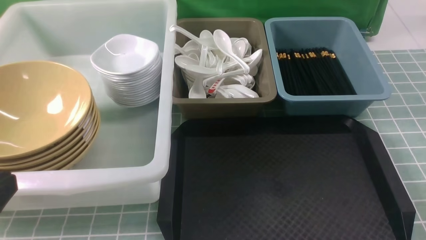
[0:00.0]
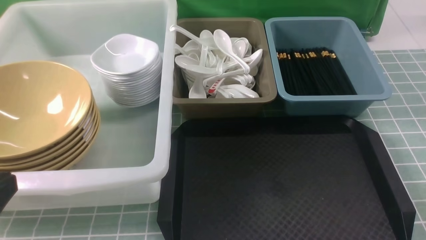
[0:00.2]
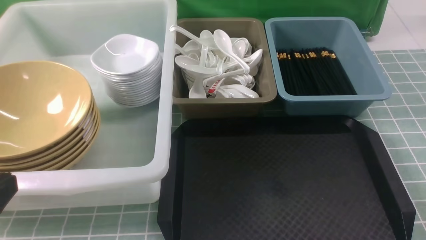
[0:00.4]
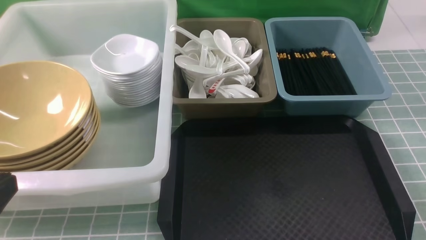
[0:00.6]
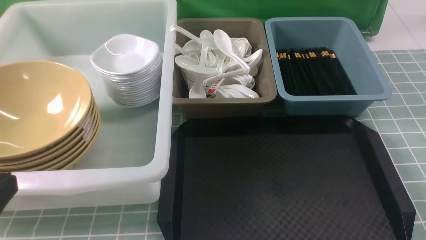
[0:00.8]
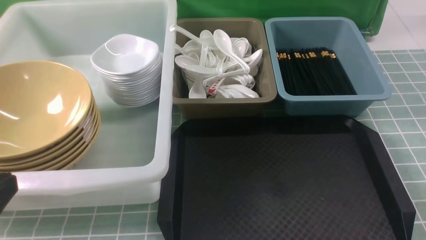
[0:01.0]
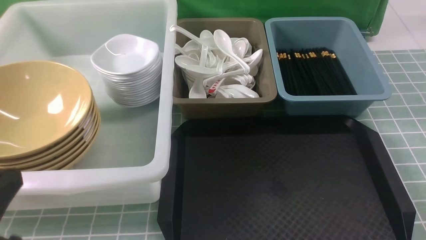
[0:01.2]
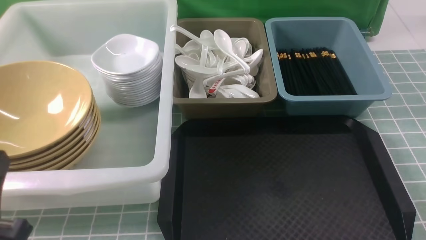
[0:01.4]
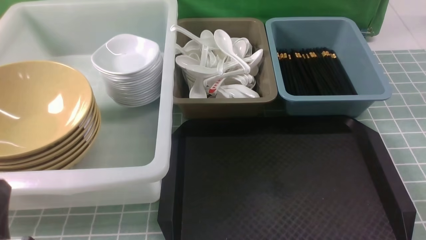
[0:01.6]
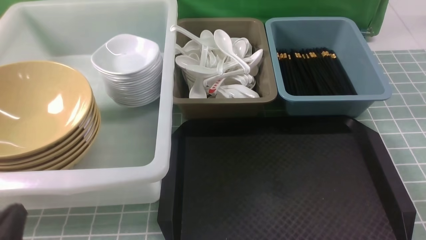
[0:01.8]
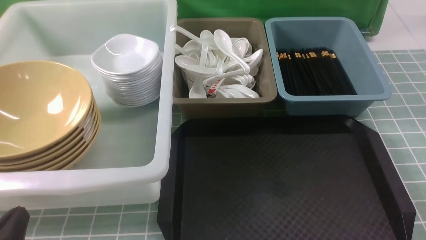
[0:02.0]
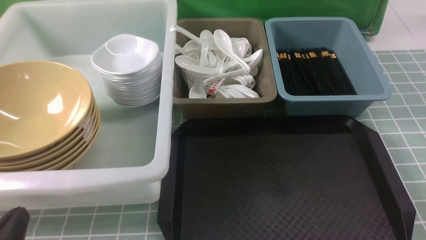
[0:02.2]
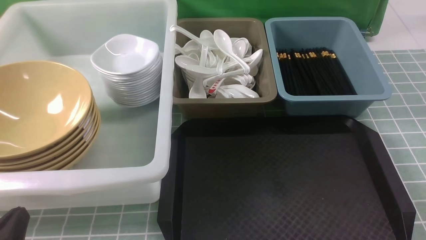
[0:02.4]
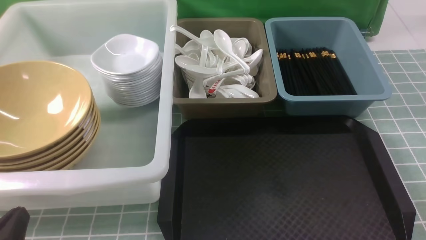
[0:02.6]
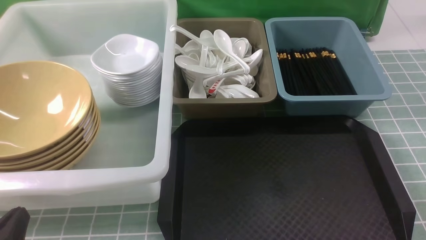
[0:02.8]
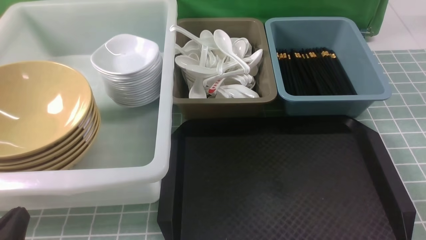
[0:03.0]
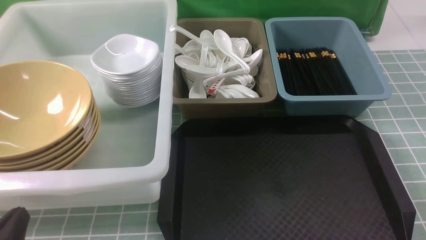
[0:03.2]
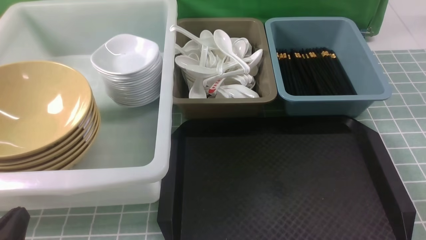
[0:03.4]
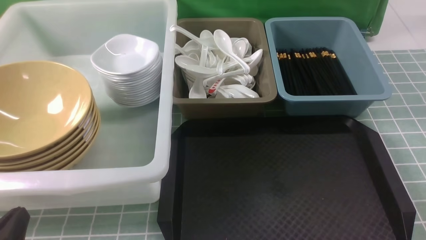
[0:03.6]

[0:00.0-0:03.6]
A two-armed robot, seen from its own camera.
Task of the whole recording: on blue table put chopsticks spoon bowls plates into blue grey white boxes.
0:00.0 to 0:01.8: The left gripper heads downward, covering about 10 cm.
0:01.8 to 0:03.6: Both grippers stay put.
